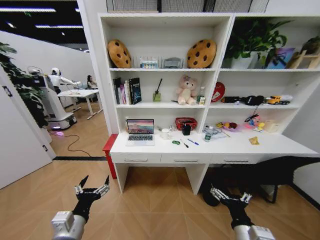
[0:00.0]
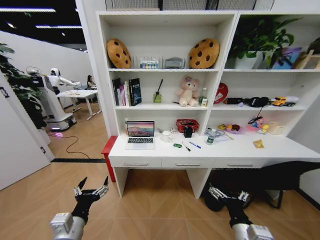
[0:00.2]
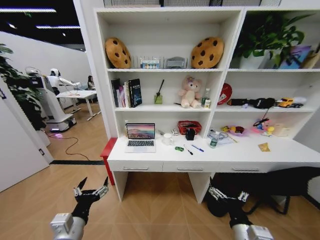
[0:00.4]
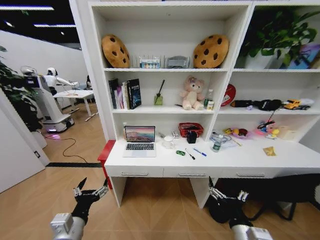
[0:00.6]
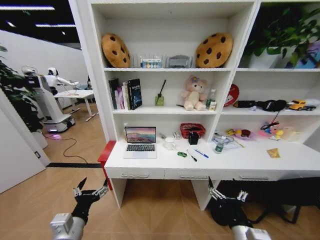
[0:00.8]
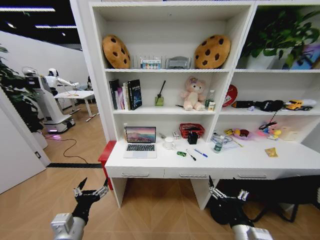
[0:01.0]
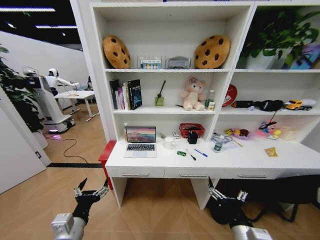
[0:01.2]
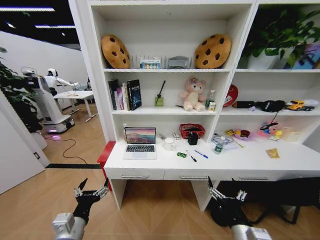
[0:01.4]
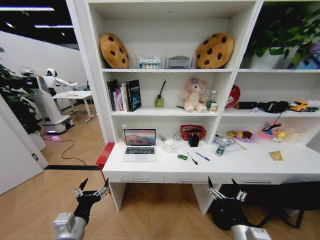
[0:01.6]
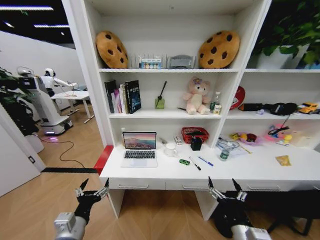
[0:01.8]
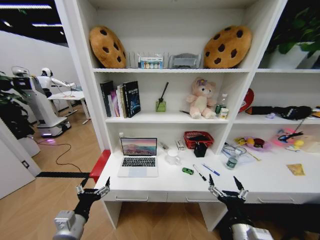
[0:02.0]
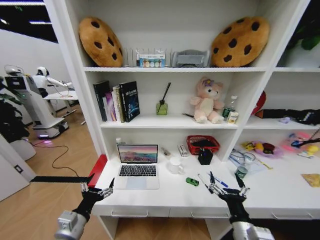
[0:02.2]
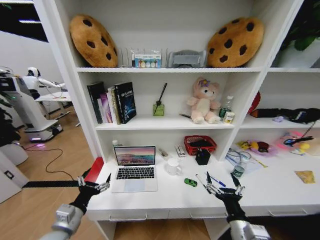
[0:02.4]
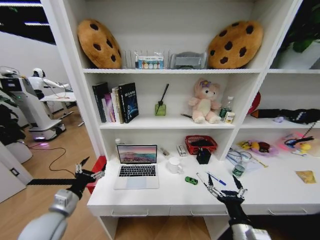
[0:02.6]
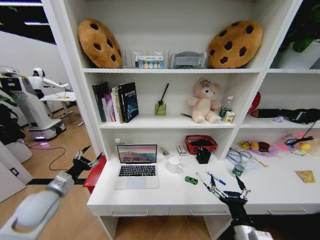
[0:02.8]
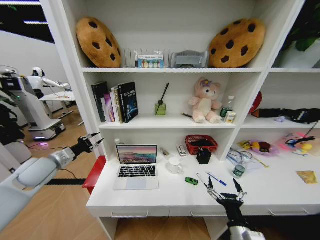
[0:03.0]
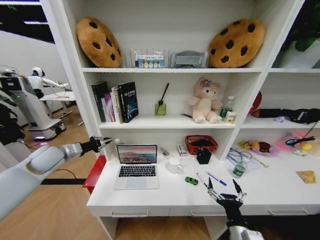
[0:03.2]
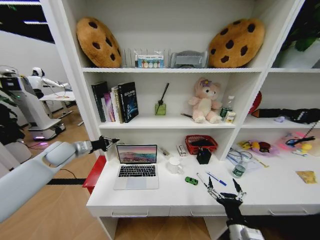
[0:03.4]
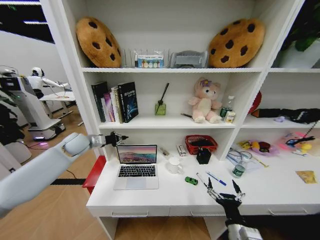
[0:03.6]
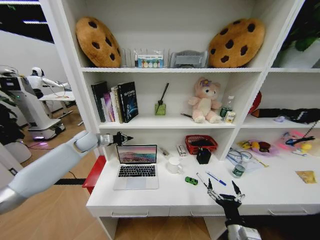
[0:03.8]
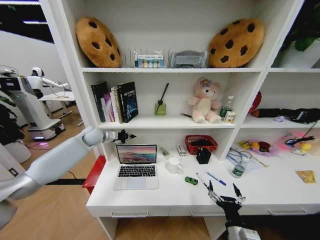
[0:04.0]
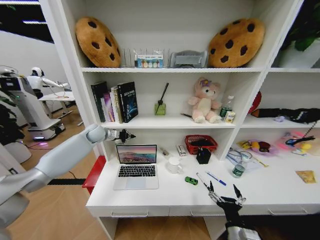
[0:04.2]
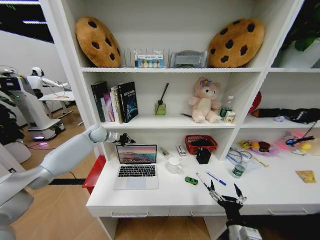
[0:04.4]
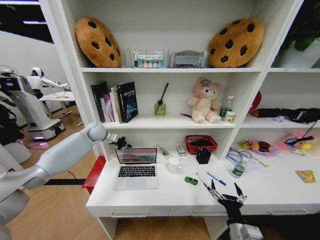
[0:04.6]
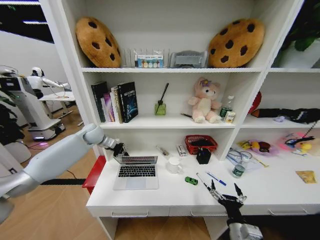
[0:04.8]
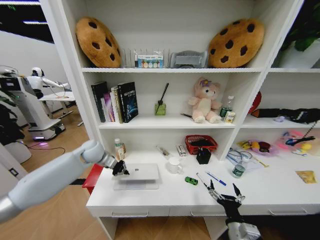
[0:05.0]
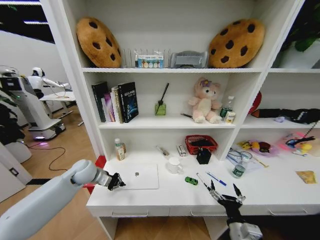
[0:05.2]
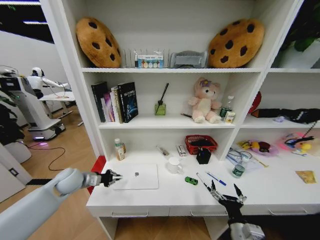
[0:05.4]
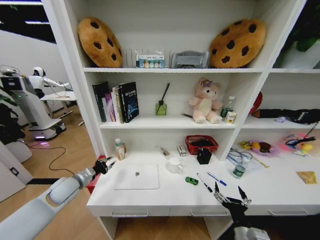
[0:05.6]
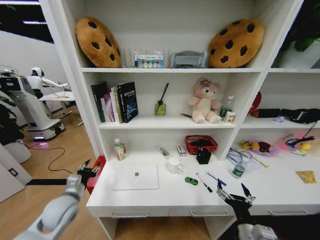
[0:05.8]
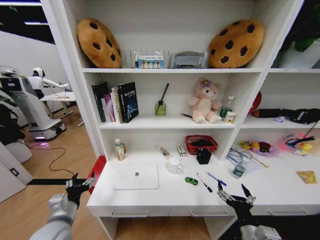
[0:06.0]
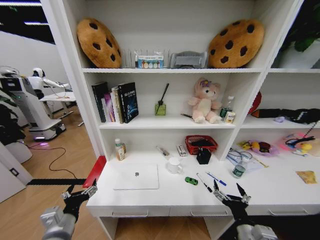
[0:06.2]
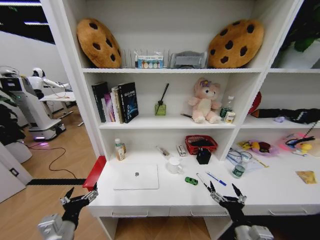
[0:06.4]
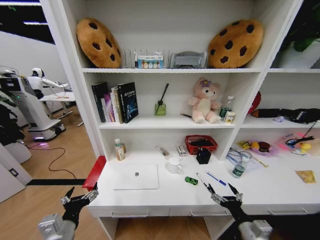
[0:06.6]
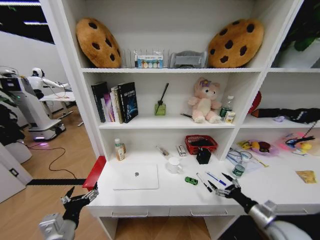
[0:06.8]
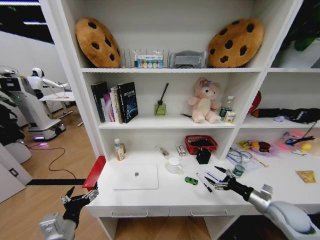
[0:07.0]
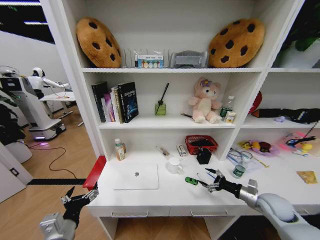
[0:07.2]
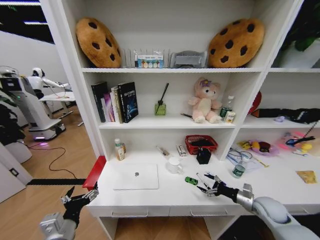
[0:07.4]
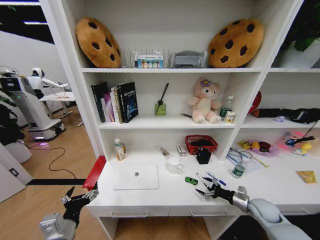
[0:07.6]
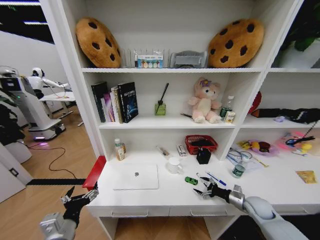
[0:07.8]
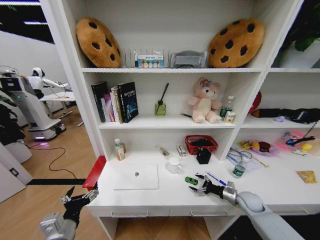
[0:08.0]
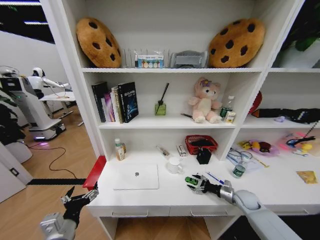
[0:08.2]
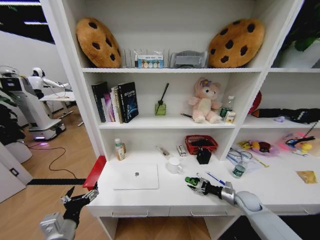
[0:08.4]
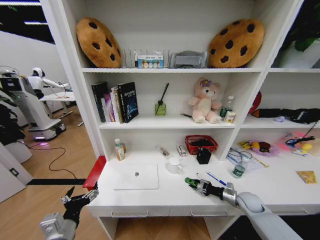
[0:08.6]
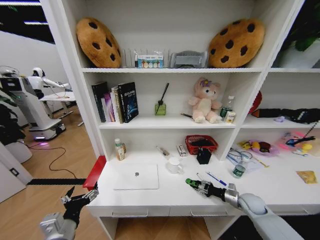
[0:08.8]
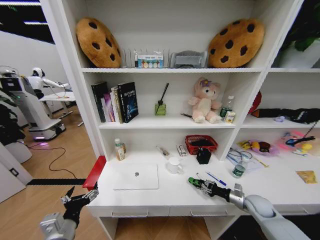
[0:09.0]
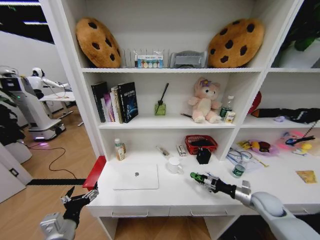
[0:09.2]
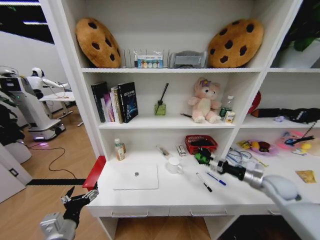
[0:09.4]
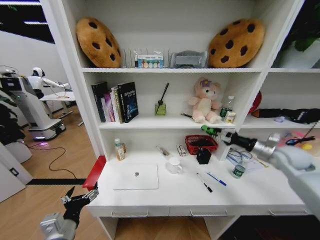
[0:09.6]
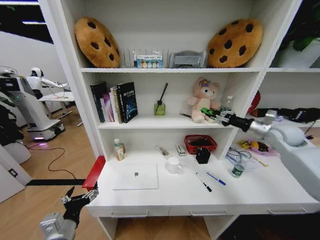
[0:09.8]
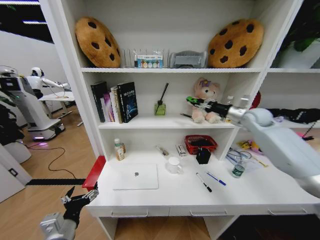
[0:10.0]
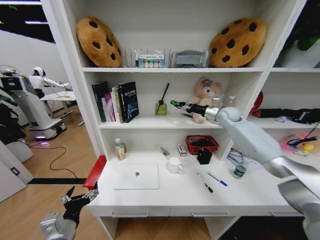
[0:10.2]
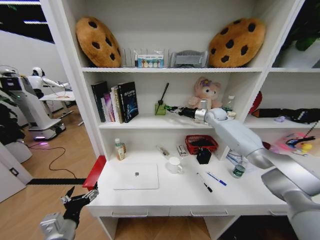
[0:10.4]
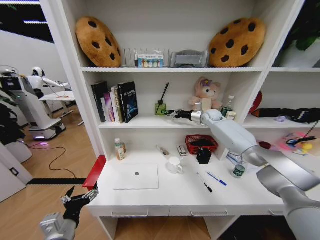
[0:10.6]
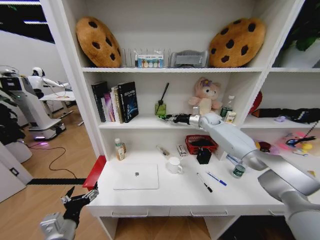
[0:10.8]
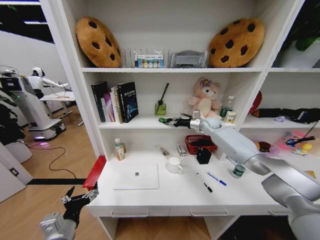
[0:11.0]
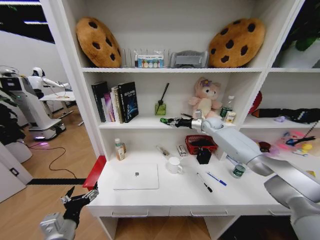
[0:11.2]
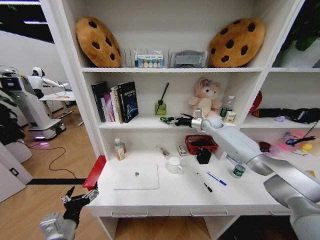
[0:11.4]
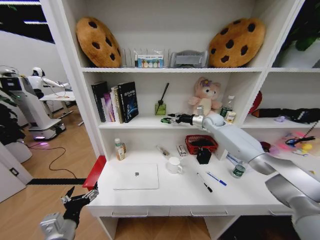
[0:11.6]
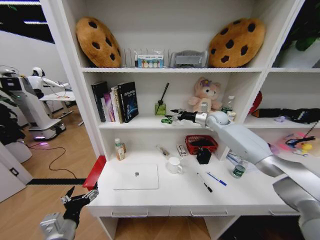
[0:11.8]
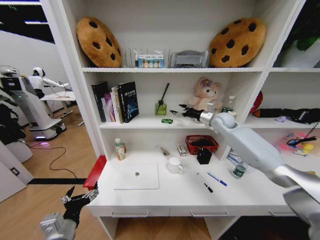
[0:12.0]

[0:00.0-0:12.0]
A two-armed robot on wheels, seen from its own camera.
Task of the whole recording: Organize the objects on the table.
0:01.6 to 0:03.0: The left gripper travels forward, to the left and upward by approximately 30 cm, and closes its fingers.
0:03.0 to 0:04.4: The left gripper goes about 25 cm forward and to the right, and closes its fingers.
0:04.4 to 0:06.0: The left gripper goes about 40 cm backward, and opens its fingers.
0:06.0 to 0:07.6: The left gripper heads backward, covering roughly 5 cm. The right gripper heads to the right and forward, covering some 25 cm.
0:07.6 to 0:09.0: The right gripper closes its fingers.
0:09.0 to 0:10.4: The right gripper is displaced forward, upward and to the left by about 50 cm.
0:10.4 to 0:12.0: The right gripper shifts some 5 cm backward, and opens.

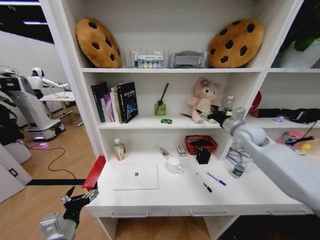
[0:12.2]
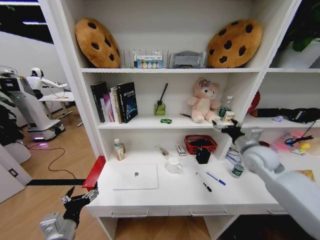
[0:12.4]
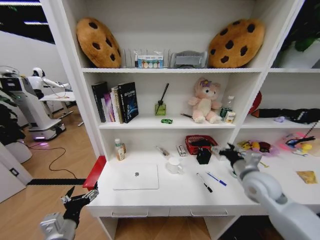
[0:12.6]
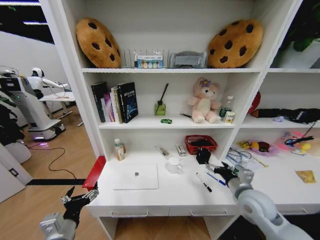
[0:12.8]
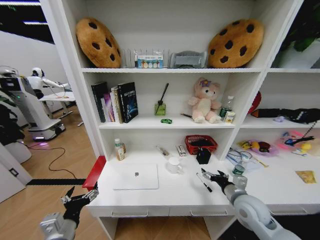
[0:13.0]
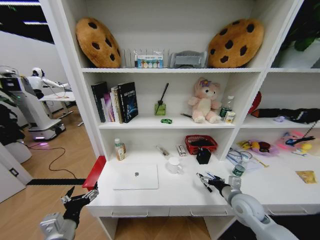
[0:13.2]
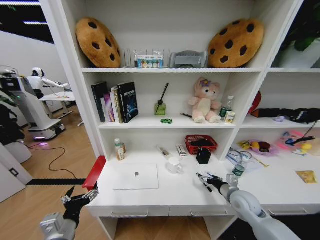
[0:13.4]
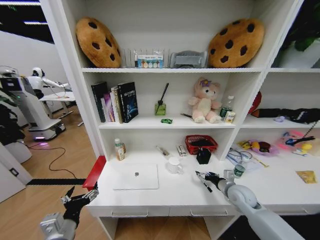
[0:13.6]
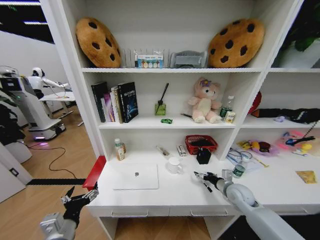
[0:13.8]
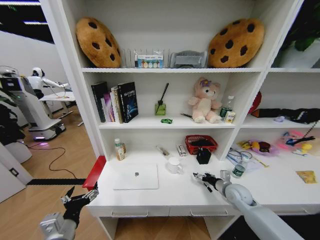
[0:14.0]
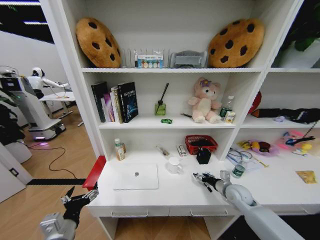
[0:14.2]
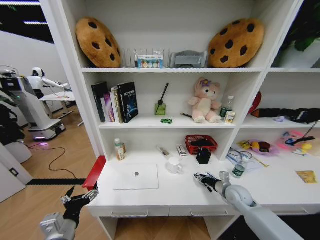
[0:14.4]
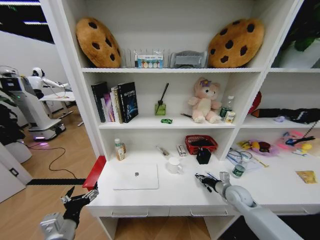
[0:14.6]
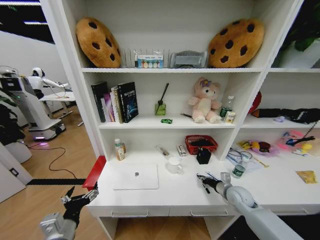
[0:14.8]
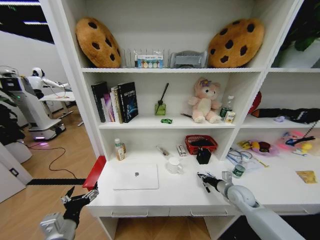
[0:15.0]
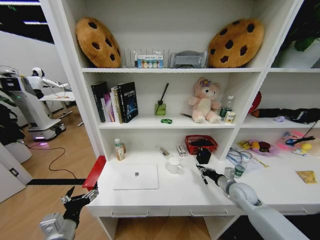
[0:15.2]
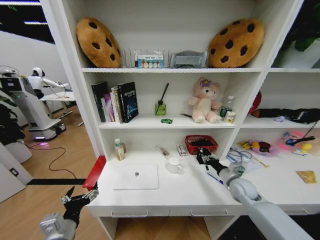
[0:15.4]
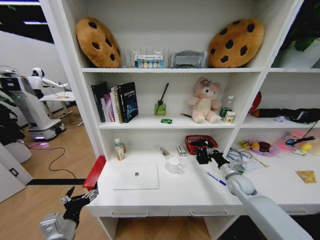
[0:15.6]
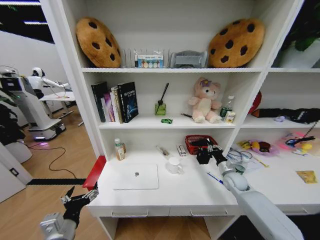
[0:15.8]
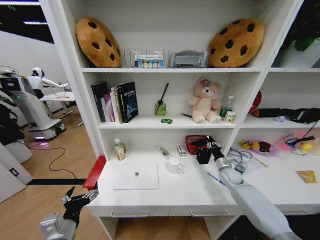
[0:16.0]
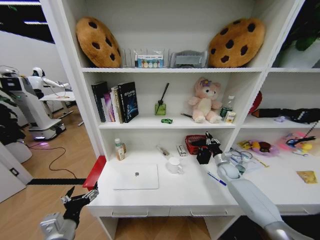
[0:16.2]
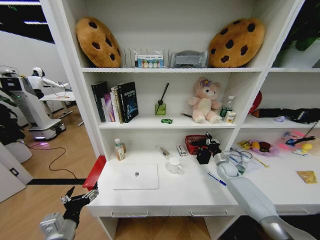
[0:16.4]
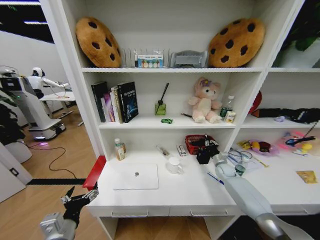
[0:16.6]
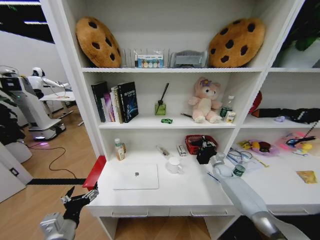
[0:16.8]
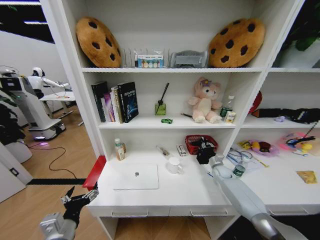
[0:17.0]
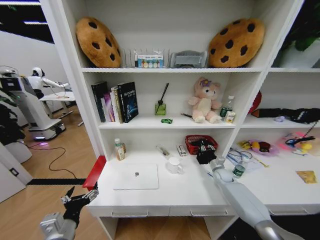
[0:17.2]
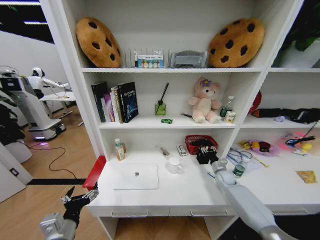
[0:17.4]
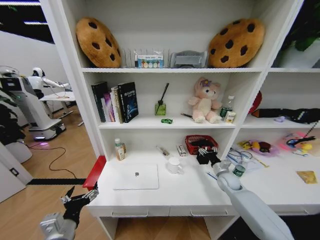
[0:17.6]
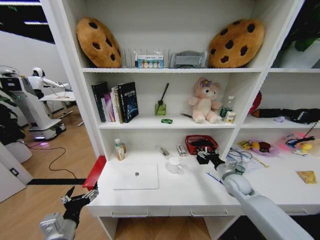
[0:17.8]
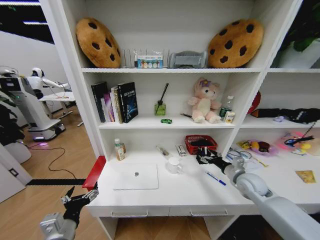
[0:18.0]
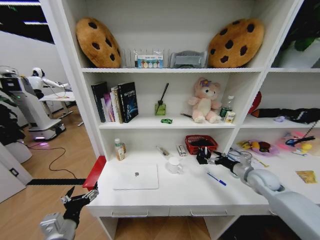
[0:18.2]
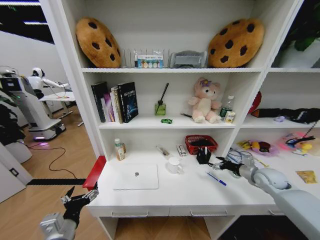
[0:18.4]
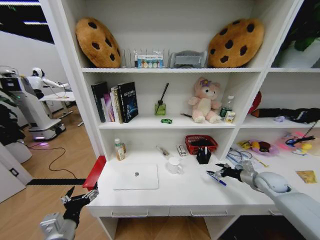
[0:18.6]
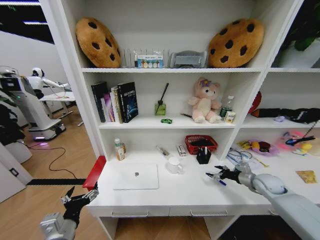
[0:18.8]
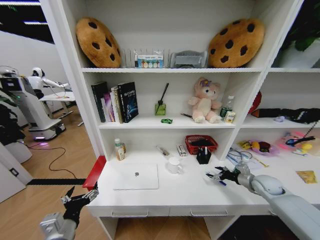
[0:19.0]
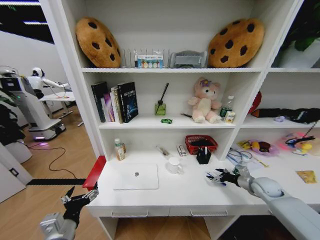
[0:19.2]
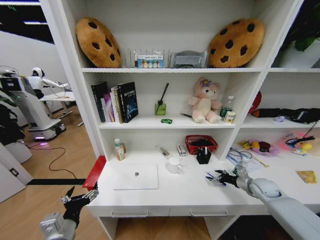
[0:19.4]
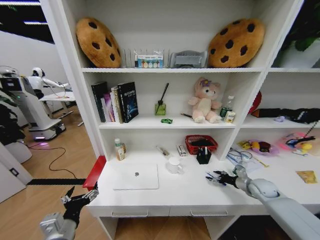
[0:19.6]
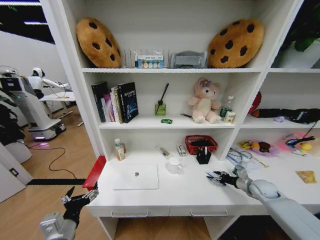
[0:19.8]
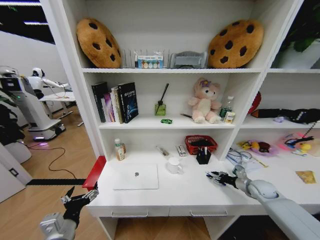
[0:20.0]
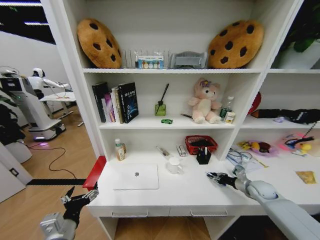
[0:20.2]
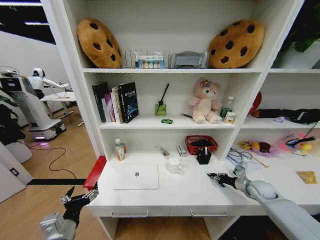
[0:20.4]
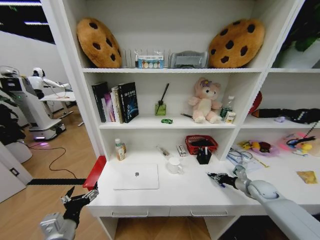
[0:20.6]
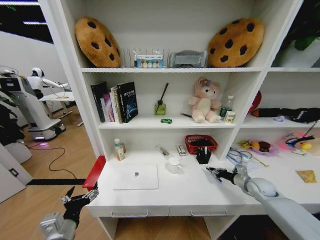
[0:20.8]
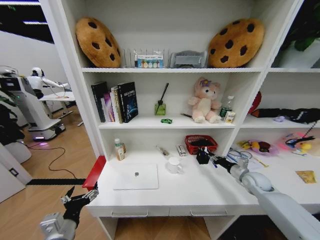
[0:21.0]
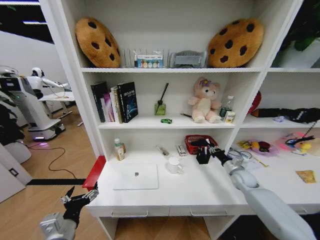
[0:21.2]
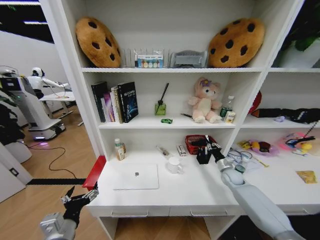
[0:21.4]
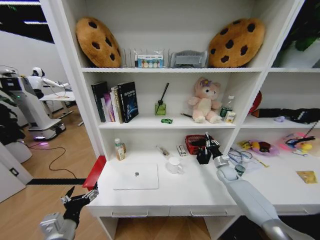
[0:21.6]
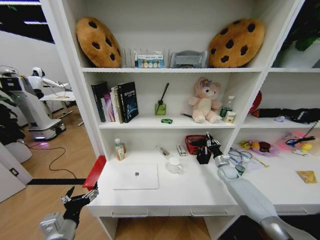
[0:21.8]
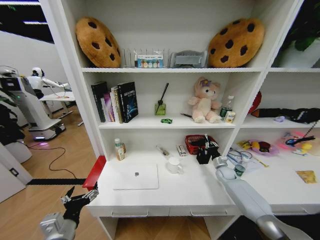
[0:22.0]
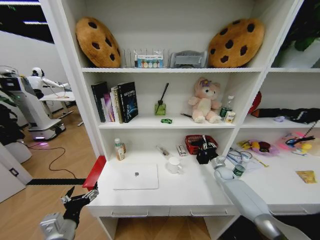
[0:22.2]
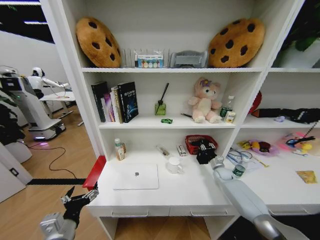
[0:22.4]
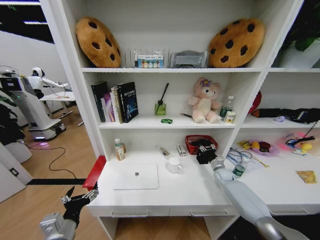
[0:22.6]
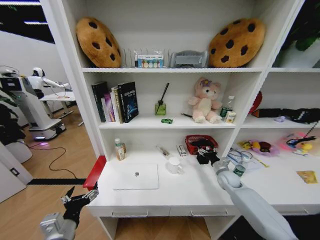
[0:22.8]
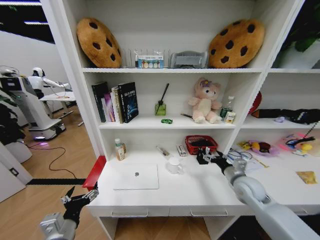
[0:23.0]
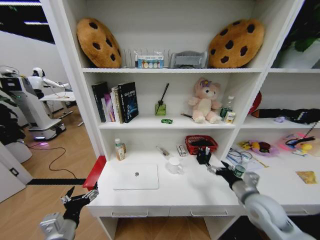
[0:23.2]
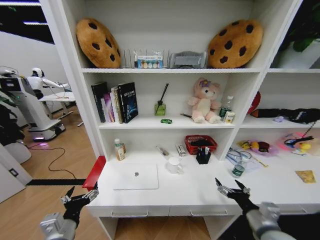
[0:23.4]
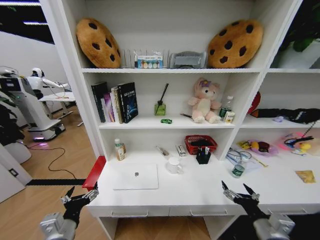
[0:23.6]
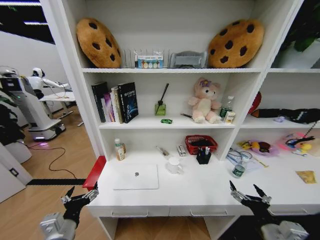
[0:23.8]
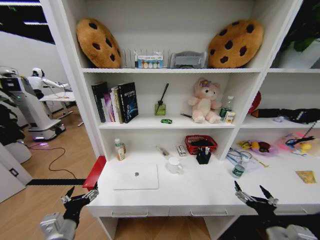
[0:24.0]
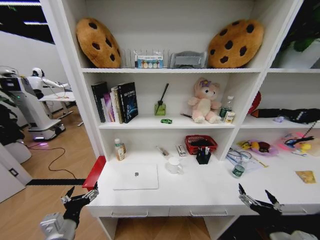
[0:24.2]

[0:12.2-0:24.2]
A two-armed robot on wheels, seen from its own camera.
Task of the whole recording: Organize the objects on the table.
0:12.2 to 0:13.8: The right gripper heads downward and backward, covering roughly 30 cm.
0:13.8 to 0:15.2: The right gripper closes up.
0:15.2 to 0:16.6: The right gripper shifts some 15 cm forward.
0:16.6 to 0:18.2: The right gripper moves backward and upward, about 20 cm, and opens.
0:18.2 to 0:19.8: The right gripper is displaced downward and to the right by roughly 10 cm.
0:19.8 to 0:21.2: The right gripper moves to the left, approximately 5 cm, and closes up.
0:21.2 to 0:22.6: The right gripper shifts approximately 10 cm downward and forward, and opens.
0:22.6 to 0:24.2: The right gripper heads backward, covering approximately 40 cm, and opens its fingers.
